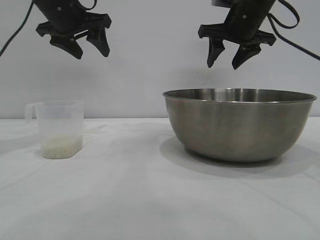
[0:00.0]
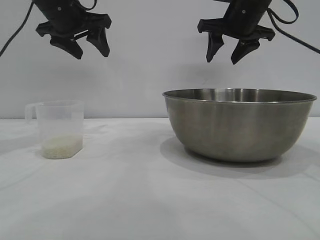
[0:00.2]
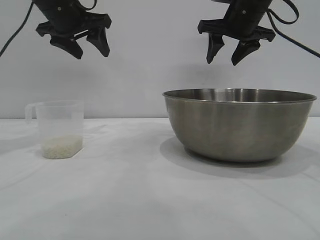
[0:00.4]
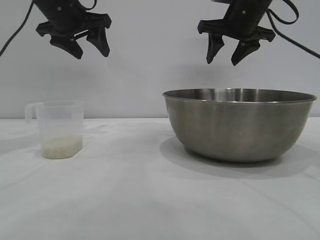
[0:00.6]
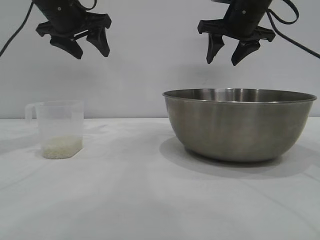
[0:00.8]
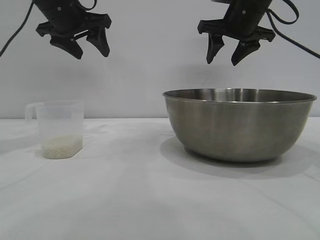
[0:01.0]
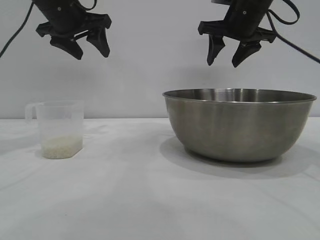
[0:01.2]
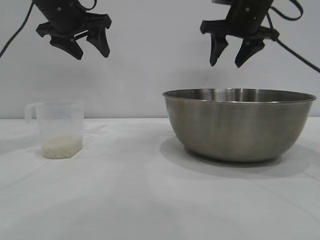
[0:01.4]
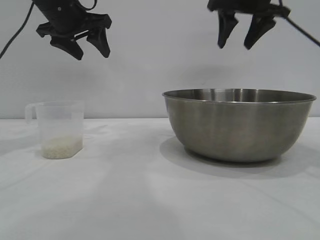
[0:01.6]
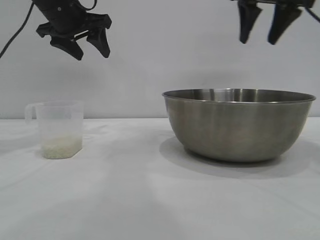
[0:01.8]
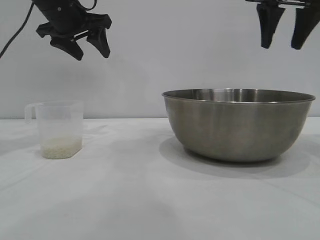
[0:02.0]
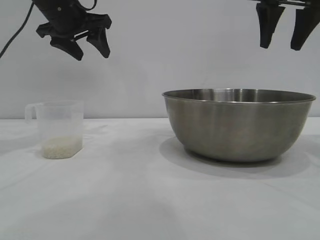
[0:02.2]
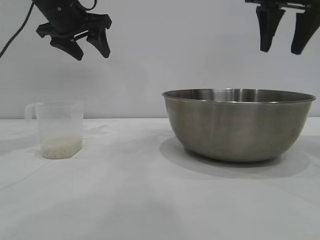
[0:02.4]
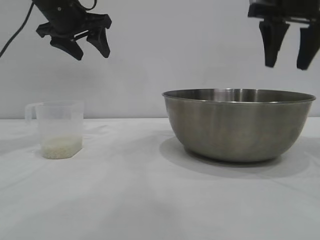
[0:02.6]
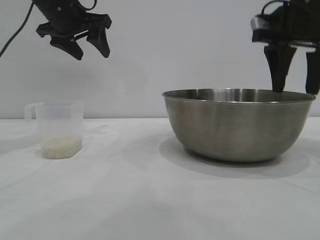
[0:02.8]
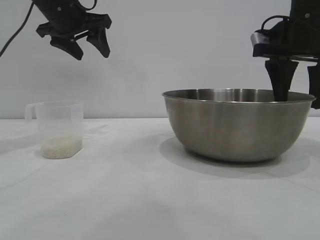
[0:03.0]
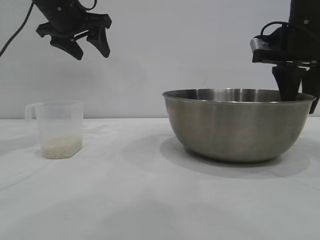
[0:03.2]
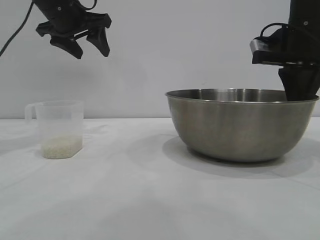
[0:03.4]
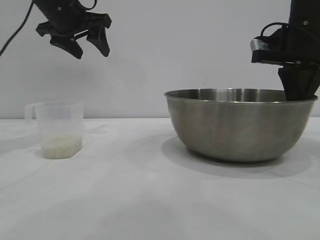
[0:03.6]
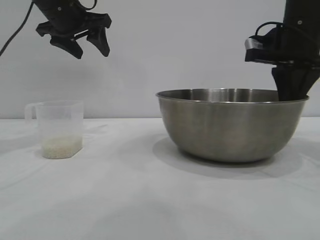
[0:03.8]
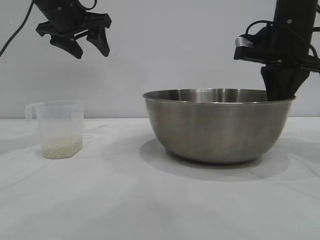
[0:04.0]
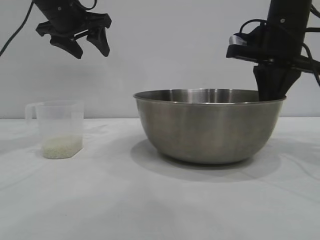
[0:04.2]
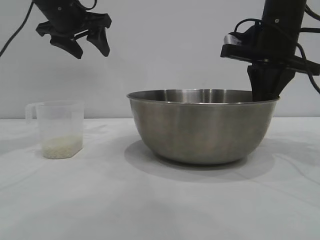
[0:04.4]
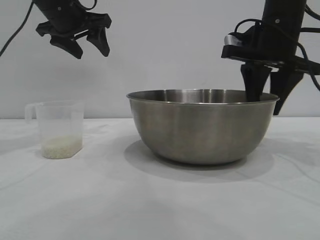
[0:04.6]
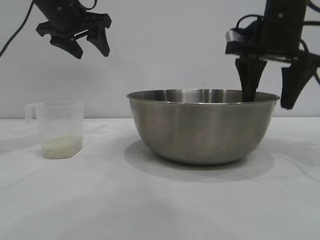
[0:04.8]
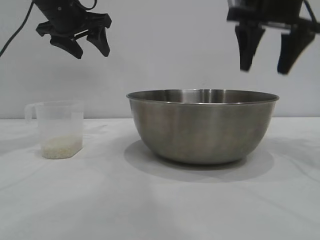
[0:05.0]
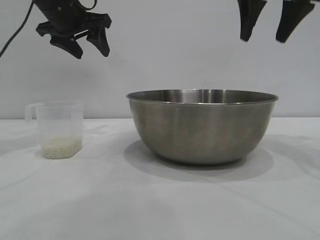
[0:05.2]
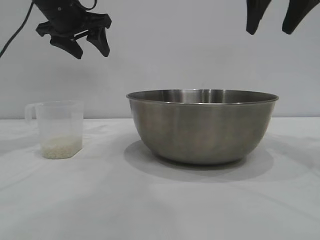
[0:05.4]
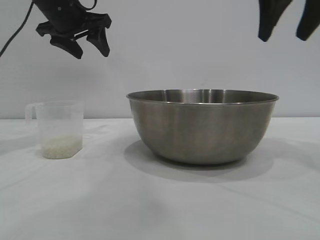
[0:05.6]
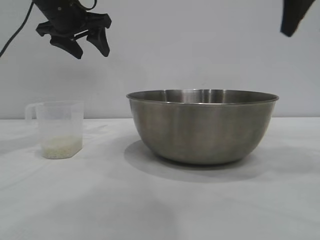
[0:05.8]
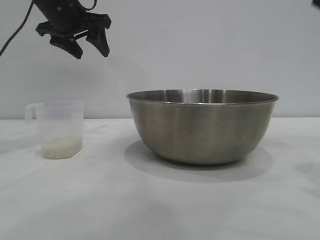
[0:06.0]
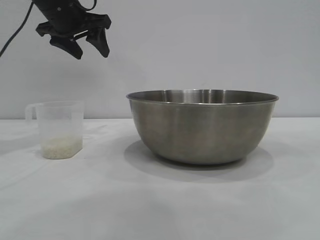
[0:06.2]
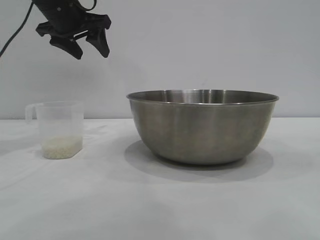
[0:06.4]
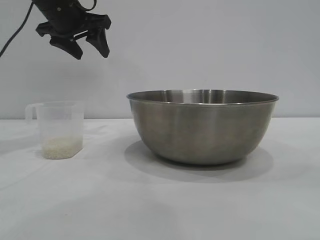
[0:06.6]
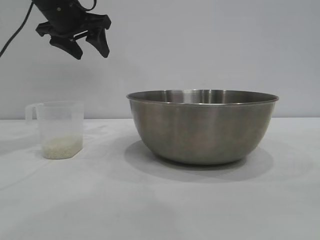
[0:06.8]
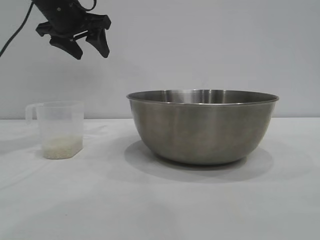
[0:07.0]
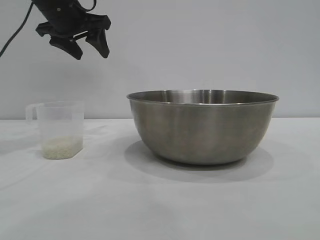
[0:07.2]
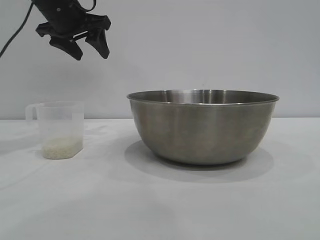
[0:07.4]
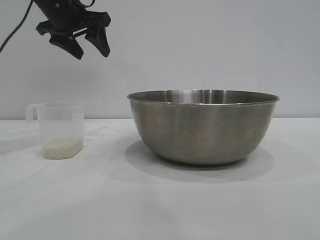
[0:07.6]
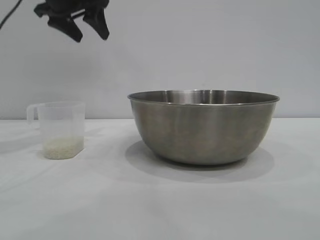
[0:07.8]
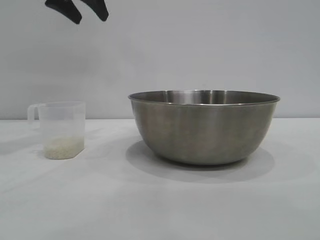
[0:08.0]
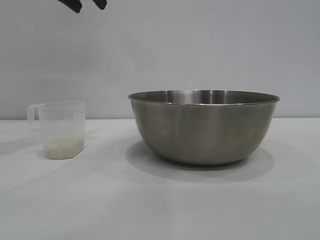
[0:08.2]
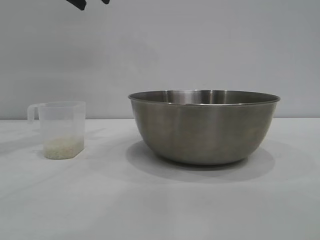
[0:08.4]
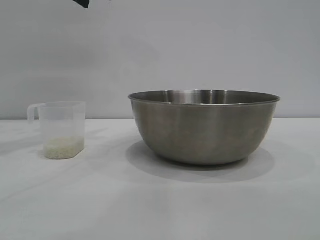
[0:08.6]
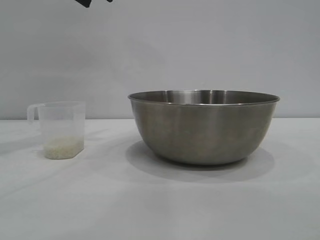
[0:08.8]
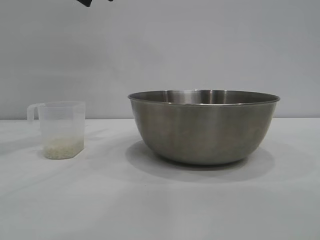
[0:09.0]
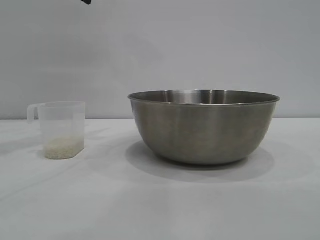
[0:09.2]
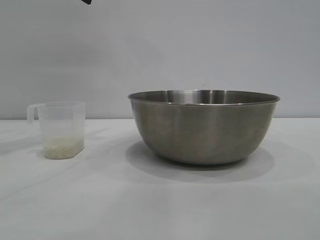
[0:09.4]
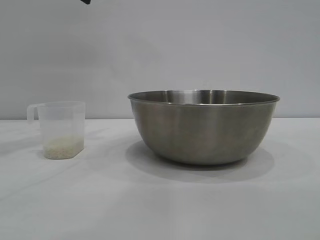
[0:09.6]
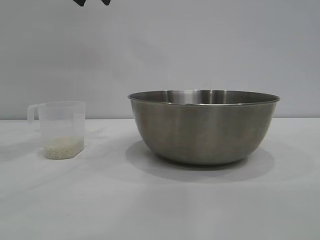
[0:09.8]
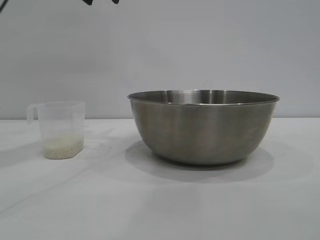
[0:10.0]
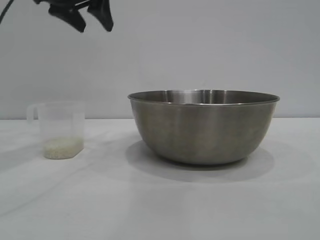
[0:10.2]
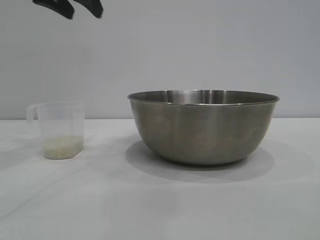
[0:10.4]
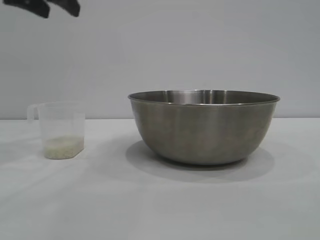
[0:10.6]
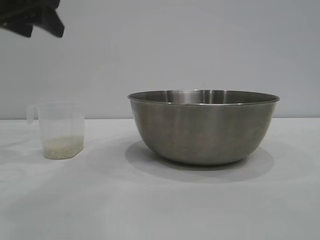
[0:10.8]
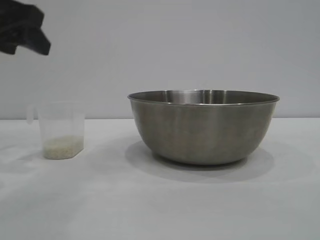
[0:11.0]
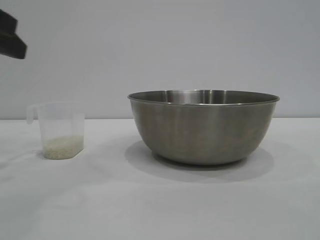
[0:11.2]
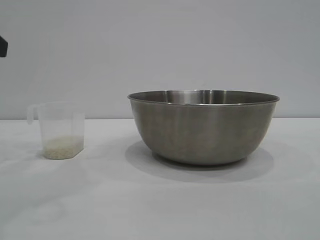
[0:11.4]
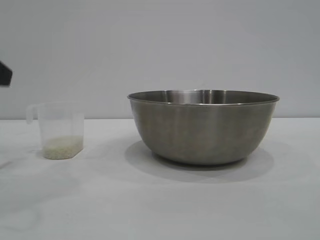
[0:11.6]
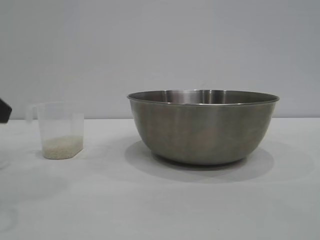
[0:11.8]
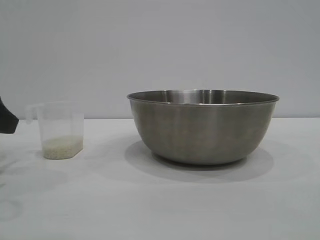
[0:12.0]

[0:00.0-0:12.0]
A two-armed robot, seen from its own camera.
Task of the whole recording: the right gripper grasp the rice container and place it in the center of the table, the left gripper grasp the rice scoop and pour the rice into the rice container.
Step, 0:00.0 to 0:04.8: Move the bowl to the center of view with the right gripper.

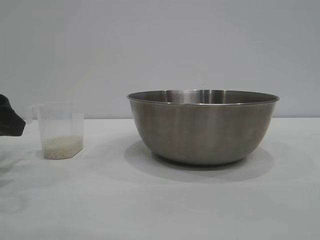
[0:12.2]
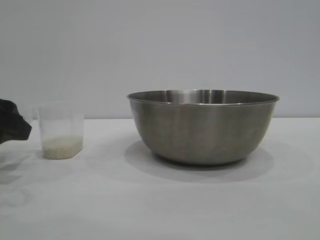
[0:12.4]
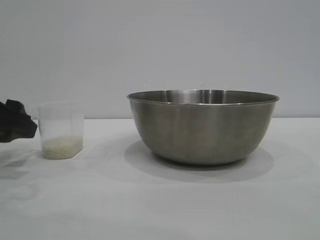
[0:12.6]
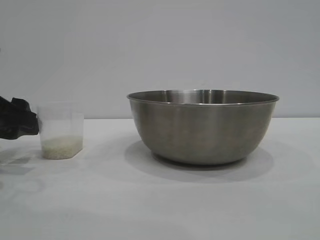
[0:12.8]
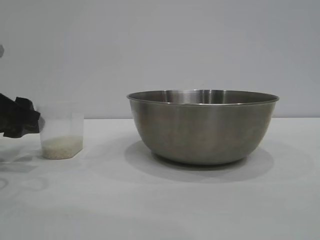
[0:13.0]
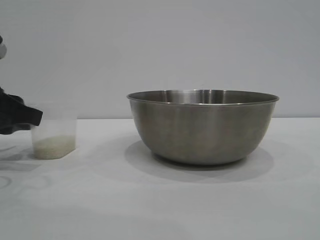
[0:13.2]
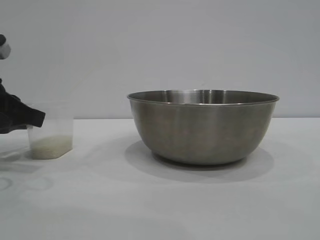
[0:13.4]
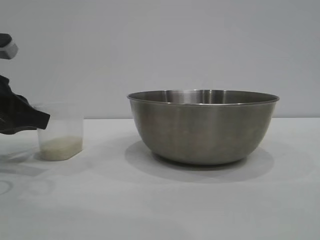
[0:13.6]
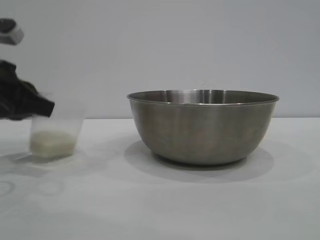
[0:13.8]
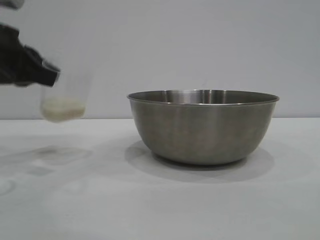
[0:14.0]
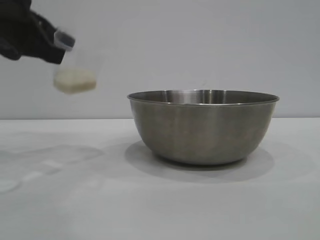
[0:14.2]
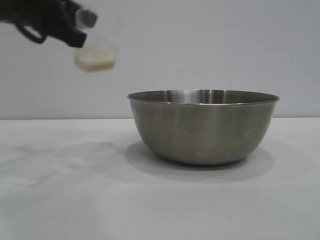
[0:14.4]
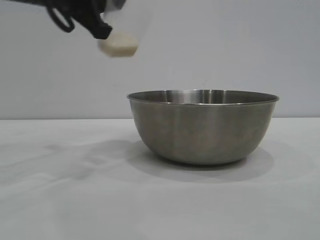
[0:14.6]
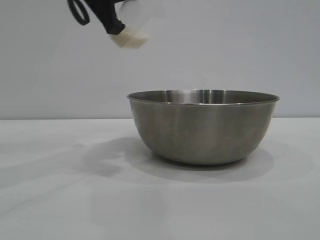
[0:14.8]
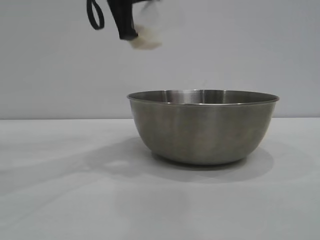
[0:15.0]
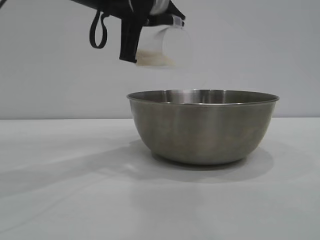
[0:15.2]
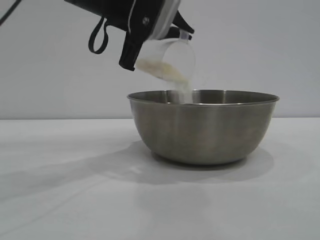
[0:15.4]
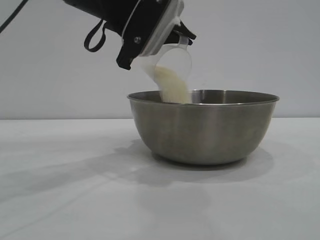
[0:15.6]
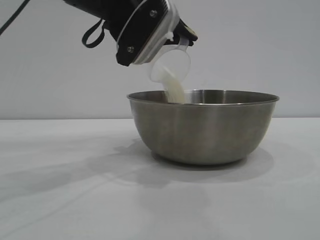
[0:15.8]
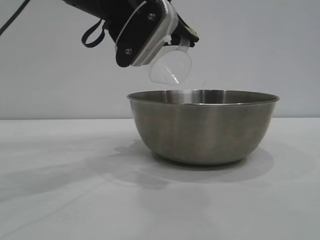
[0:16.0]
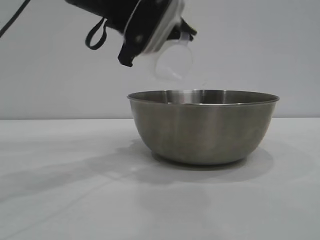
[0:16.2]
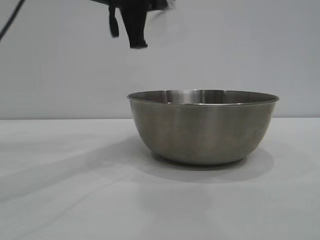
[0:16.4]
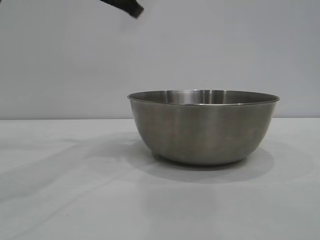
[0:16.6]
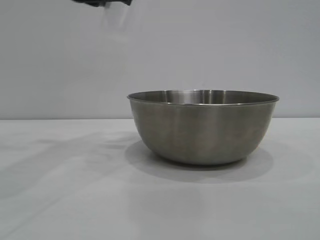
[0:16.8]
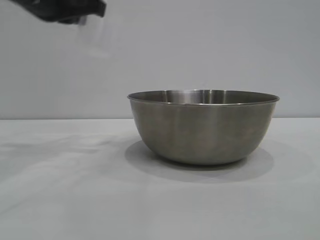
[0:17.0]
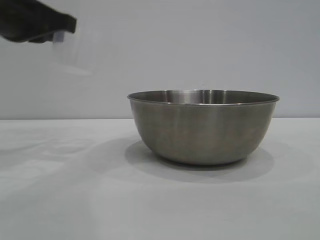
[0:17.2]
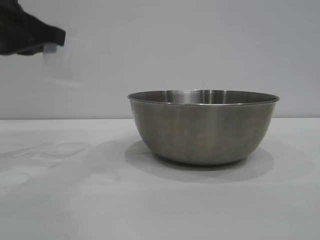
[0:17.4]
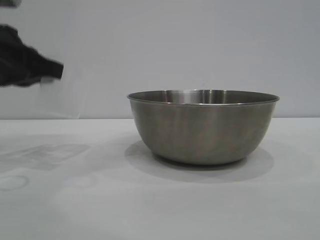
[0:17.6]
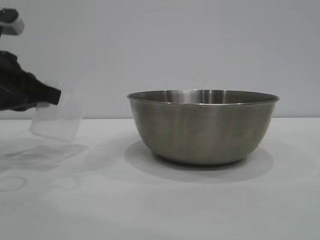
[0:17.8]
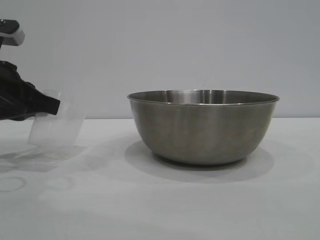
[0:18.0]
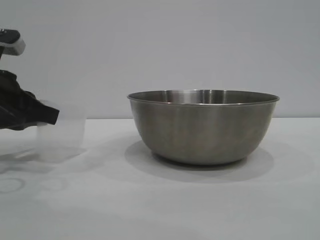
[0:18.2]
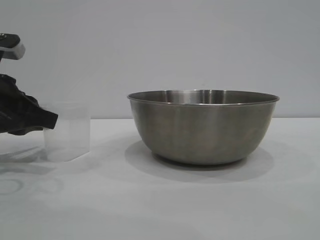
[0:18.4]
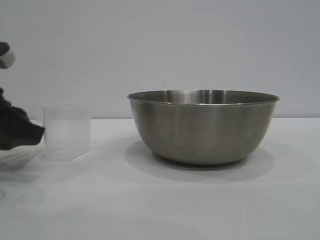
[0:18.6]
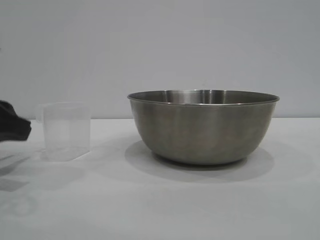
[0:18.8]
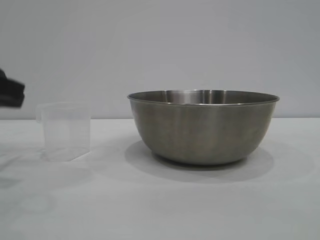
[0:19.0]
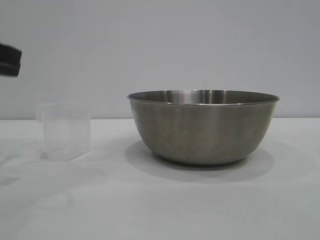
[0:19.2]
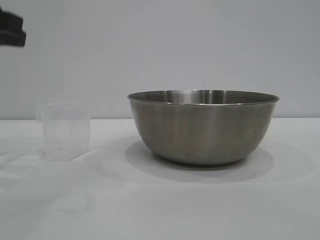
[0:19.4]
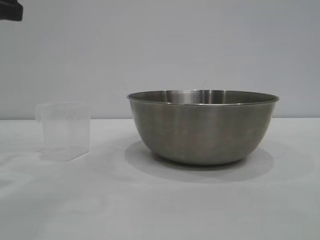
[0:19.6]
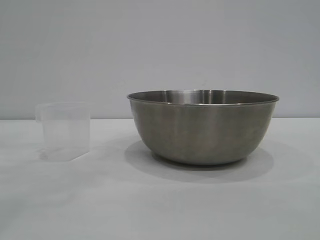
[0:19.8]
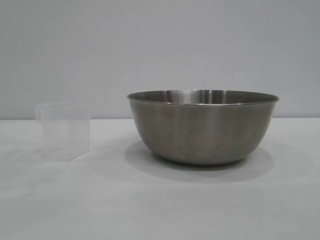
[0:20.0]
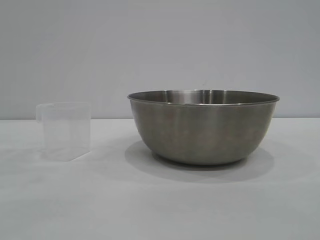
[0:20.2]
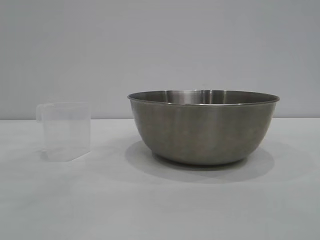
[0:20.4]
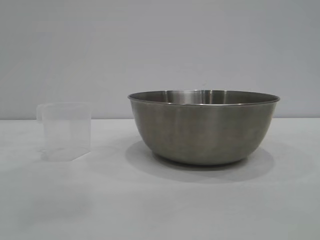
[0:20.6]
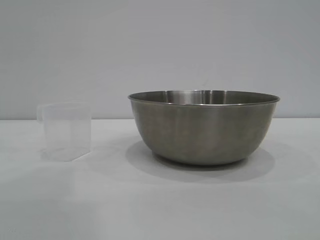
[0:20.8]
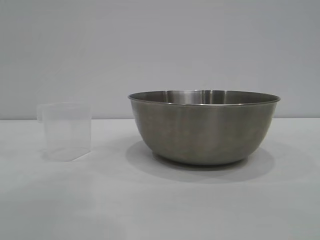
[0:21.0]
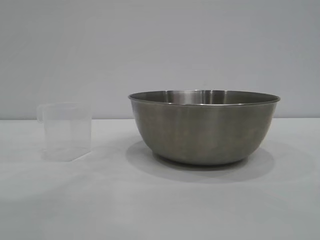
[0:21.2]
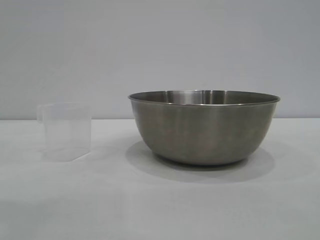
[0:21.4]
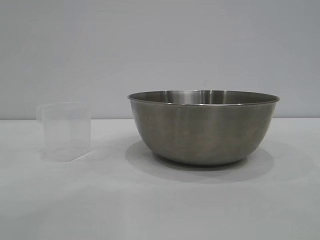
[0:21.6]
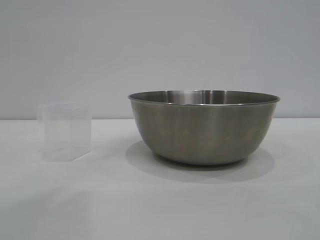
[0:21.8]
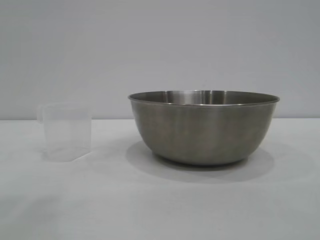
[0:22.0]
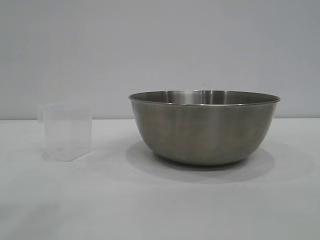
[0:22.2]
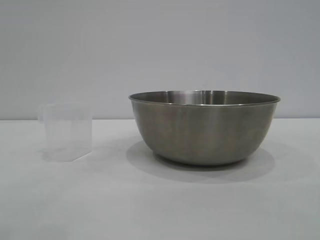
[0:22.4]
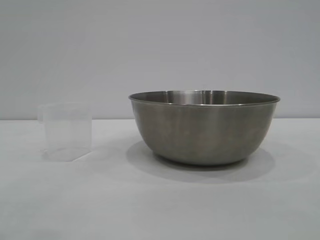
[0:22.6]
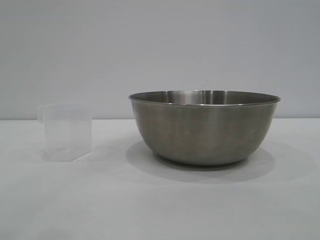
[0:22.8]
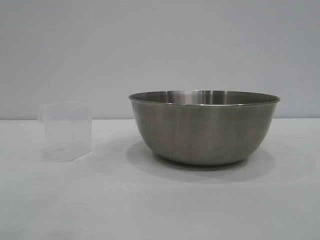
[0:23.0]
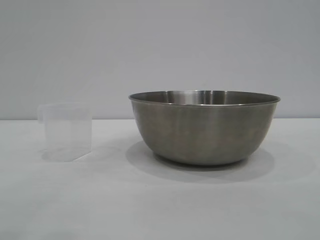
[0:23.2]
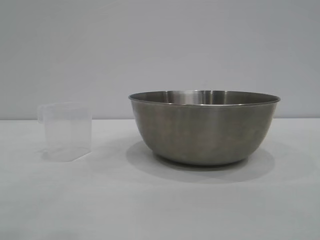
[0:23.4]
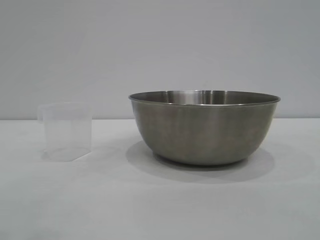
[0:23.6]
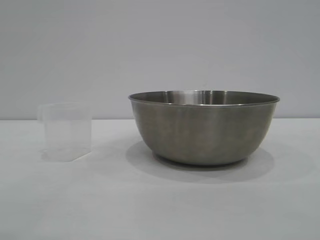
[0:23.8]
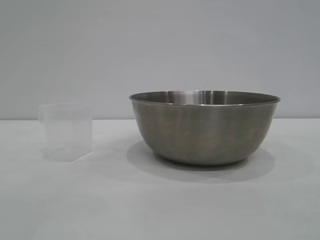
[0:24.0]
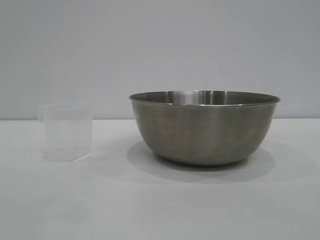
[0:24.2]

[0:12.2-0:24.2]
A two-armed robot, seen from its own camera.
Task of the whole recording: the right gripper grasp the rice container and place it in the center of the table, the left gripper grasp the rice scoop and pour the rice into the rice container.
Step, 0:14.0 to 0:16.4: Pour the rice from the cup into the bowl with the left gripper.
Step, 0:16.6 to 0:18.6: Place the cup on the table with the left gripper.
